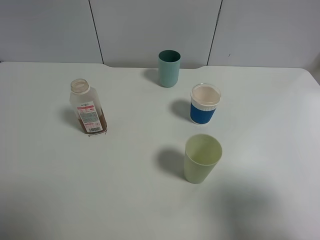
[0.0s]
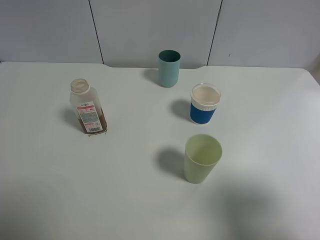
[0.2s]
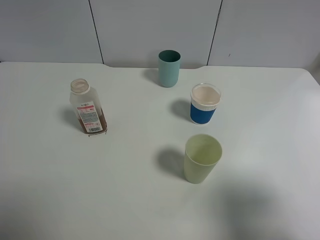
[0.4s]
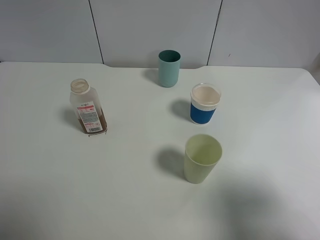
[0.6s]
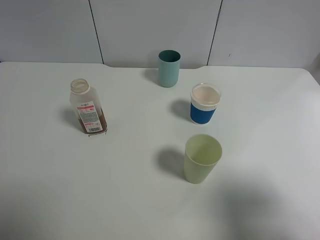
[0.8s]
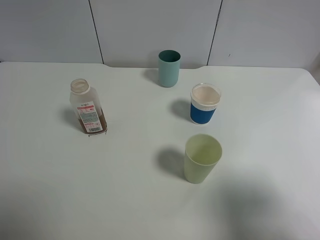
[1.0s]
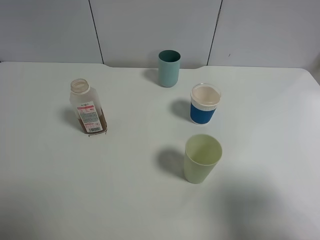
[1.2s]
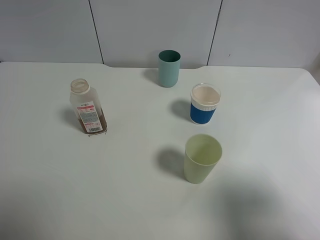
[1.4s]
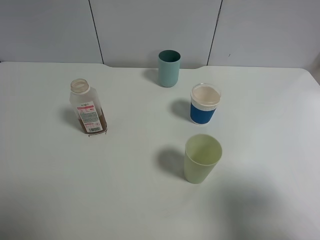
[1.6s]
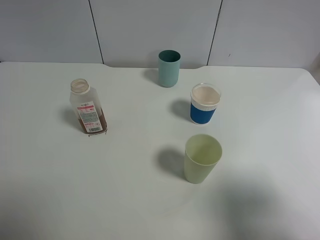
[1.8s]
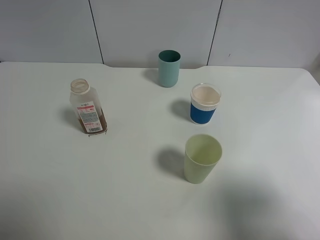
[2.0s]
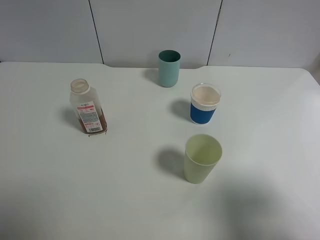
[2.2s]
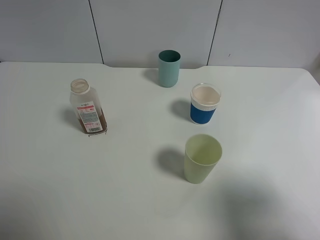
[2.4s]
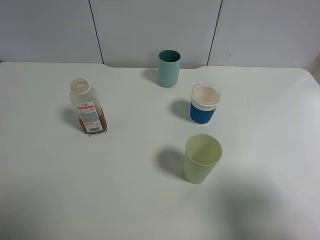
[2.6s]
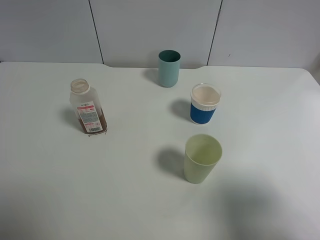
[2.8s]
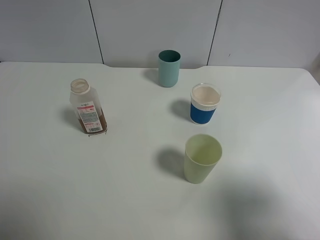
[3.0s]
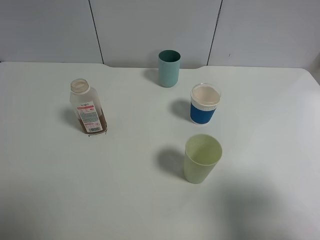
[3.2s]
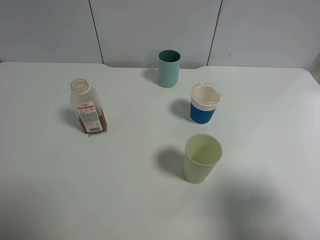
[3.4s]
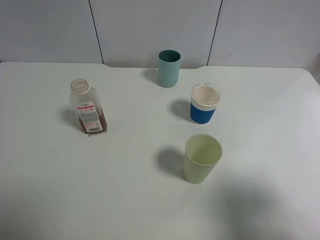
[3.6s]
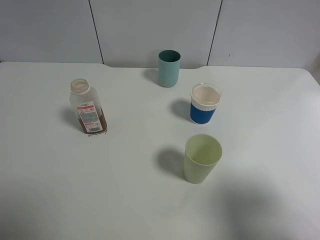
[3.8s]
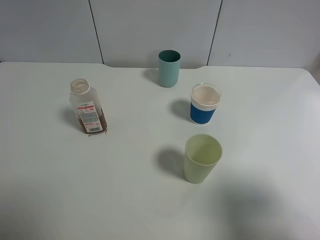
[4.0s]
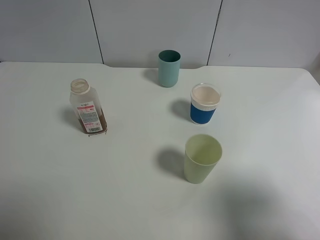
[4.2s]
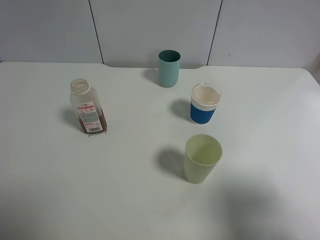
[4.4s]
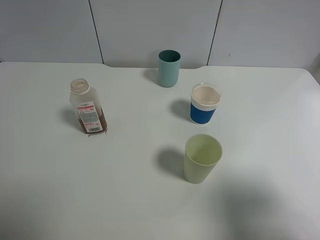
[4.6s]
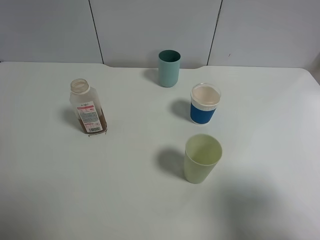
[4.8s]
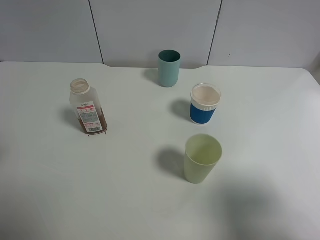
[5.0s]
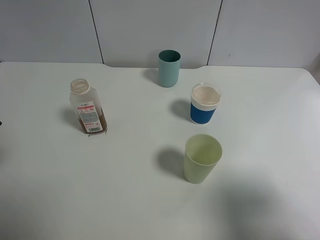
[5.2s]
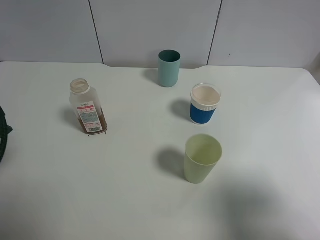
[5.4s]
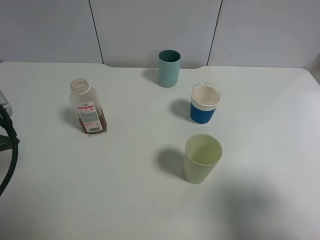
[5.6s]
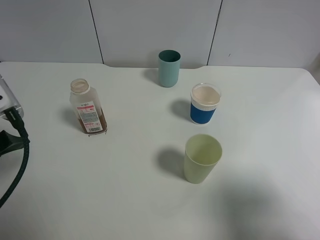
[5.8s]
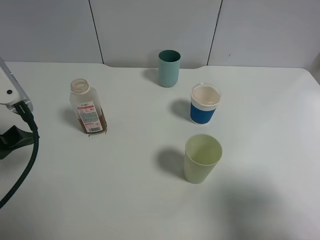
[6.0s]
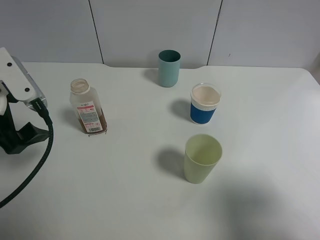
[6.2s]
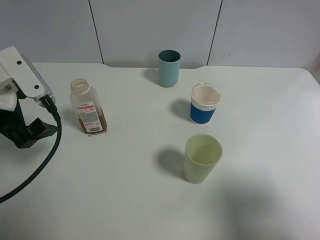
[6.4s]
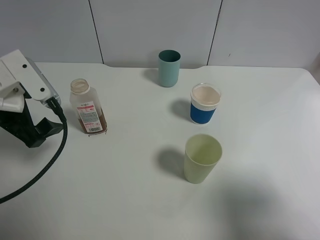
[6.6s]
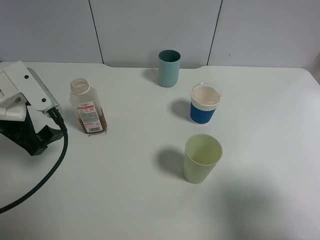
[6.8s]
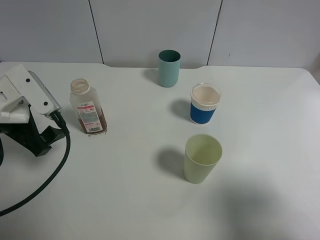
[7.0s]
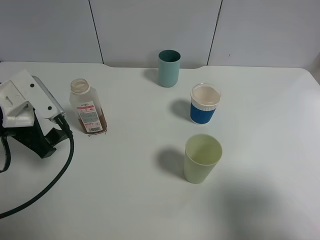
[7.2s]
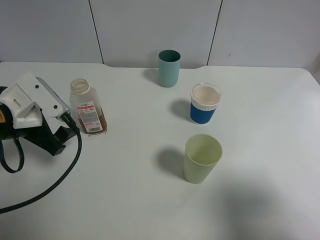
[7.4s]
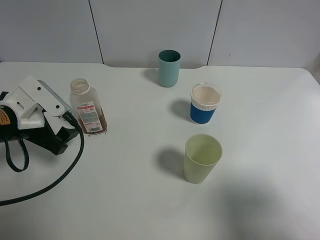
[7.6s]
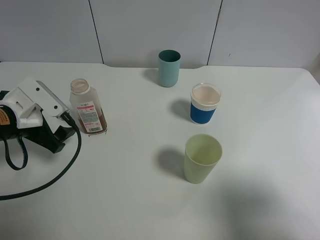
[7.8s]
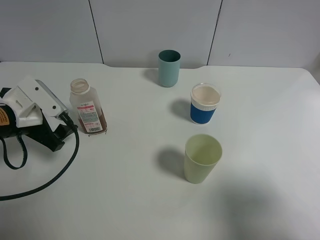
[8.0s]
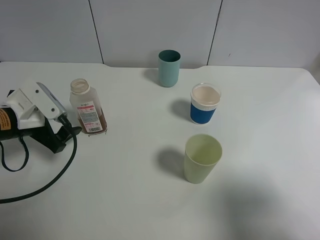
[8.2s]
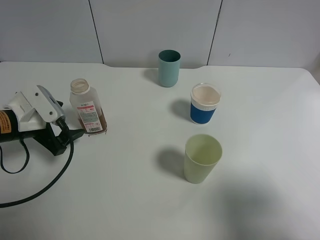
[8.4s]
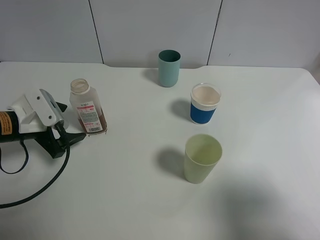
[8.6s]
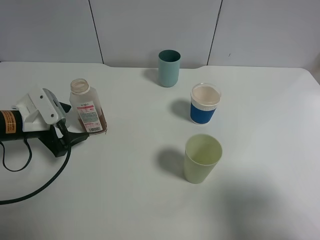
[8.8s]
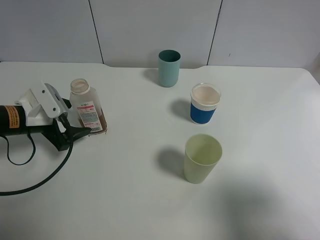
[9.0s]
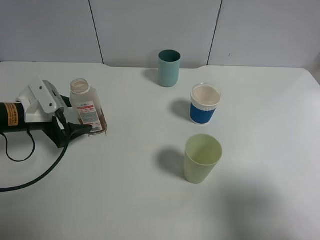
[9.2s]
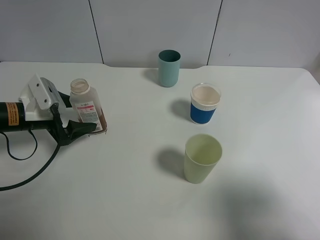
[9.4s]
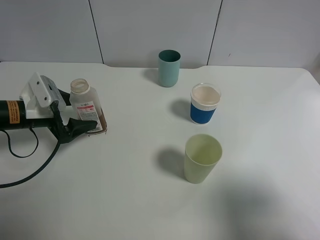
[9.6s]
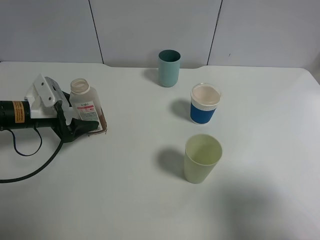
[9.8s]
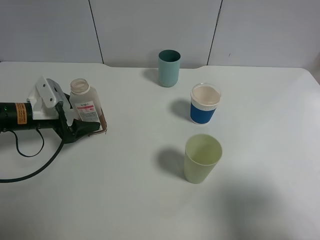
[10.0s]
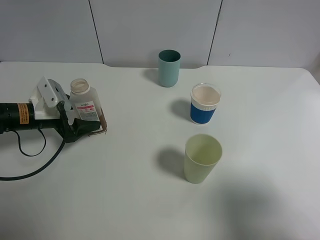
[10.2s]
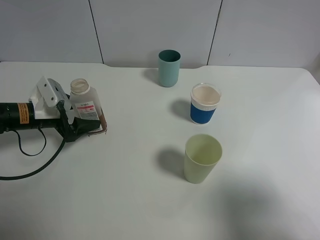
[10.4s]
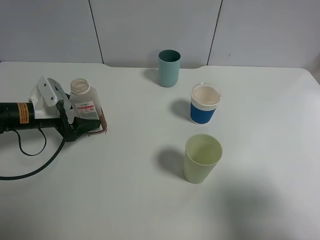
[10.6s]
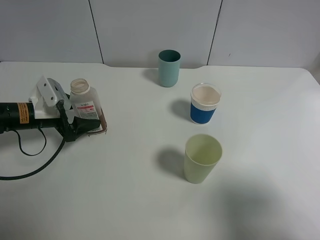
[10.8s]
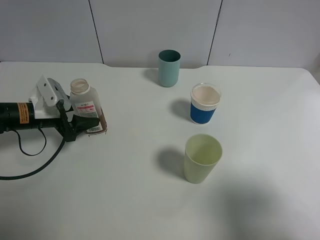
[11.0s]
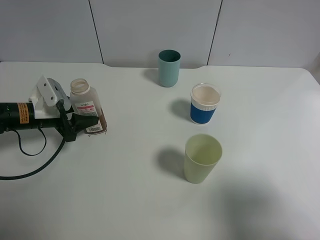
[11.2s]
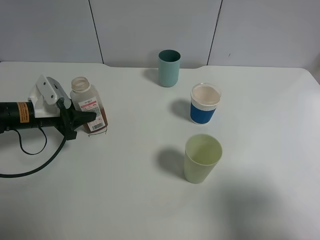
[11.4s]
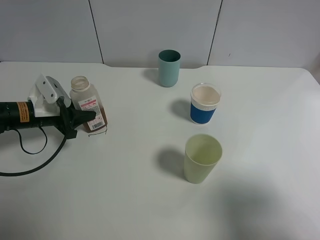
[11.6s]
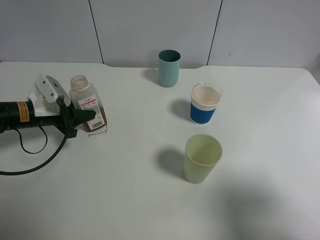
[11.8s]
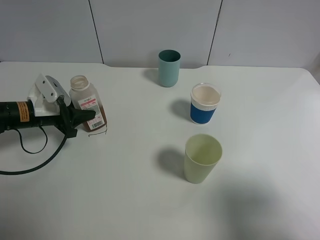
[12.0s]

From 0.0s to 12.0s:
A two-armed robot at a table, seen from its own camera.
Task of the whole recording: use a gripper to hold the bottle of the drink and pour it into a random cup.
Step, from 0.0s to 11.2s: Grasp the cranberry juice bottle with the left gripper.
From 0.0s to 3.0s: Both grippers stay about where they are.
From 4.4s to 6.0s: The left gripper shifts some 10 cm downward and forward.
From 6.0s to 7.6s: The left gripper travels downward by about 10 cm.
From 7.6s to 9.0s: The left gripper shifts by approximately 5 cm.
From 9.0s to 10.4s: The grippers make only small movements.
From 10.4s to 12.0s: The left gripper closes.

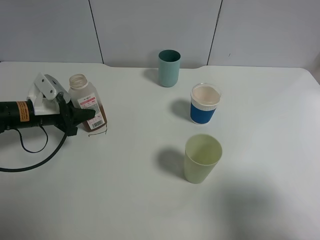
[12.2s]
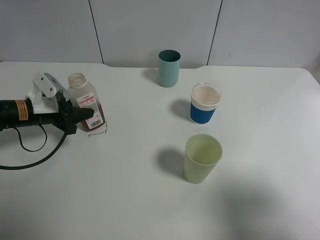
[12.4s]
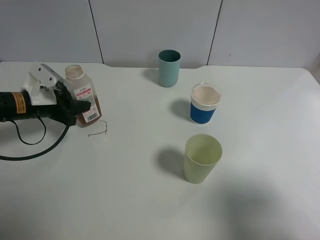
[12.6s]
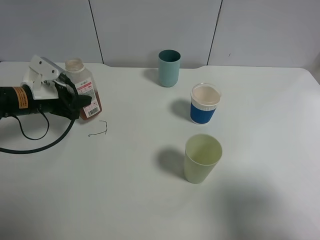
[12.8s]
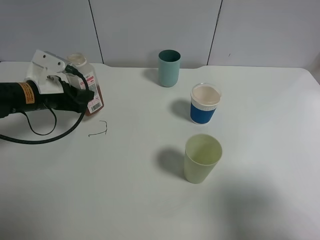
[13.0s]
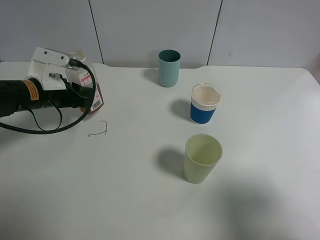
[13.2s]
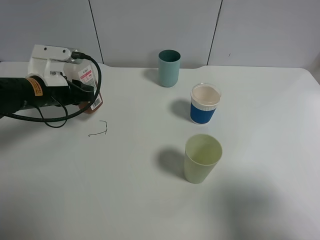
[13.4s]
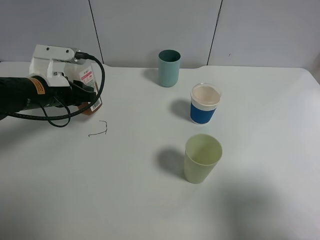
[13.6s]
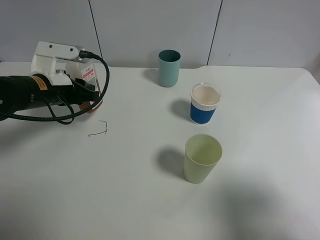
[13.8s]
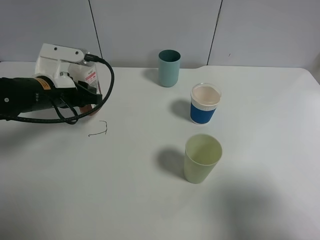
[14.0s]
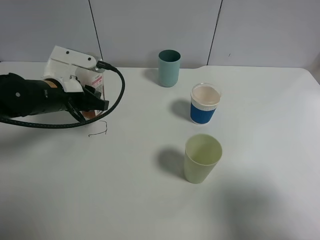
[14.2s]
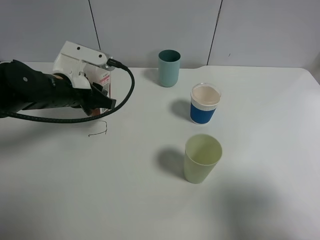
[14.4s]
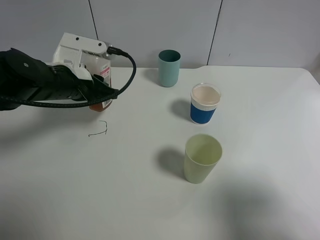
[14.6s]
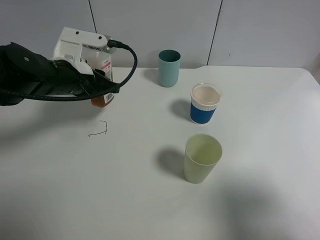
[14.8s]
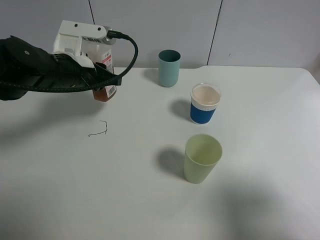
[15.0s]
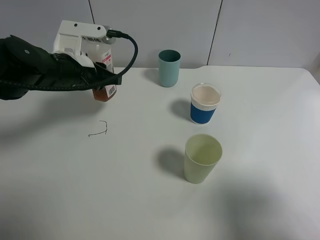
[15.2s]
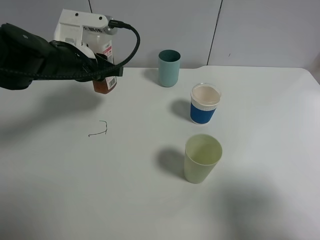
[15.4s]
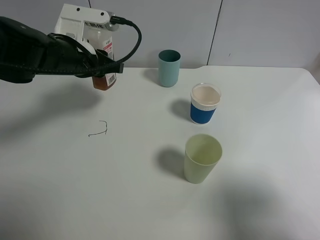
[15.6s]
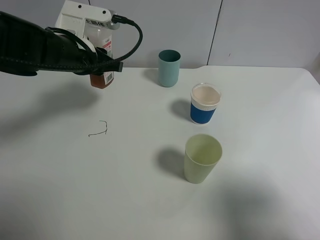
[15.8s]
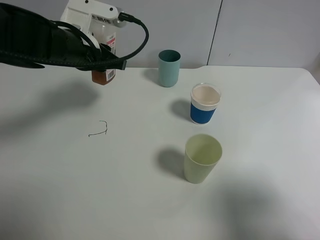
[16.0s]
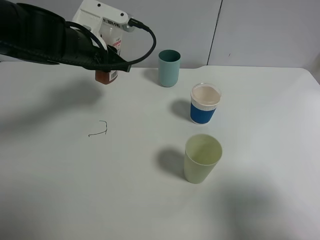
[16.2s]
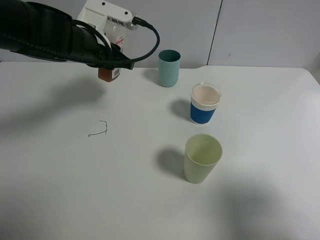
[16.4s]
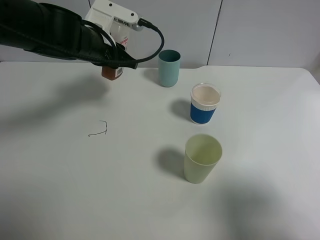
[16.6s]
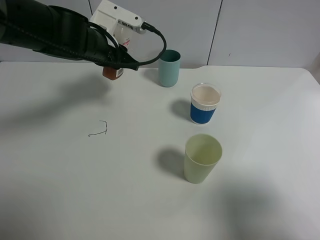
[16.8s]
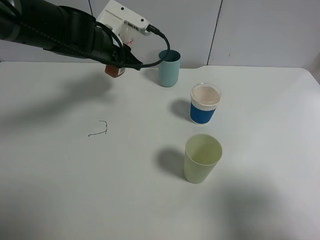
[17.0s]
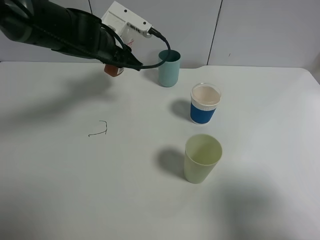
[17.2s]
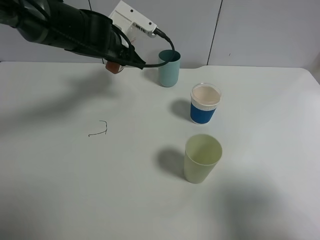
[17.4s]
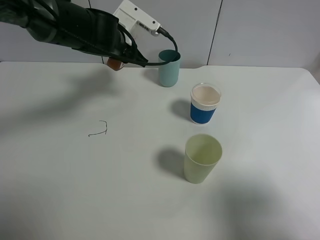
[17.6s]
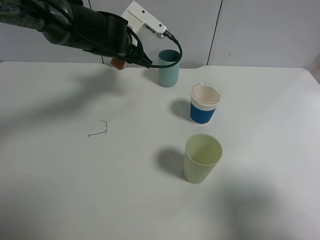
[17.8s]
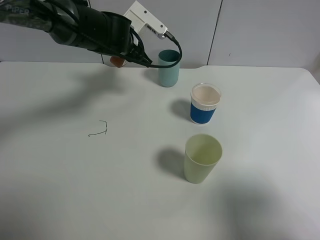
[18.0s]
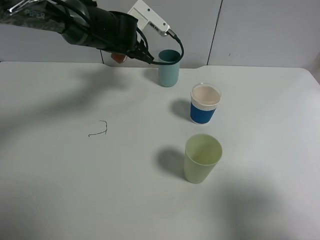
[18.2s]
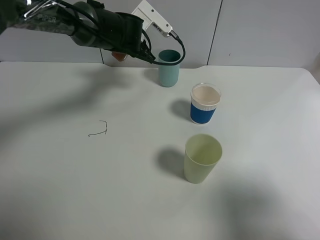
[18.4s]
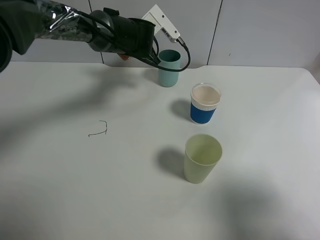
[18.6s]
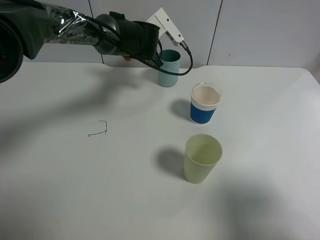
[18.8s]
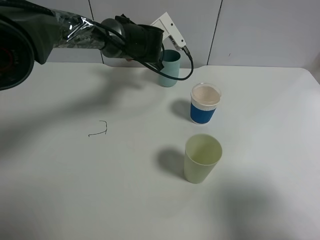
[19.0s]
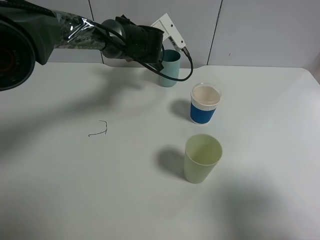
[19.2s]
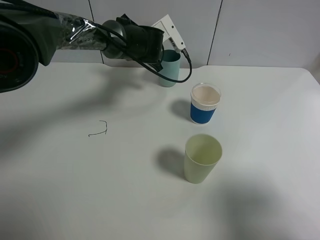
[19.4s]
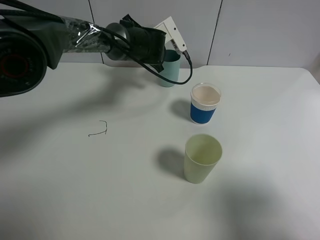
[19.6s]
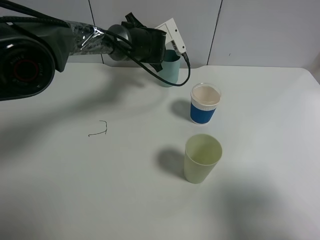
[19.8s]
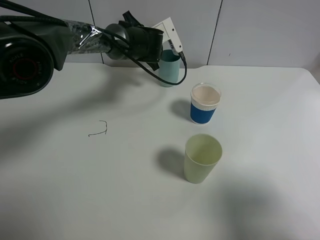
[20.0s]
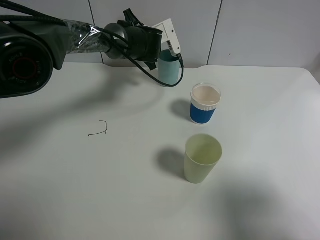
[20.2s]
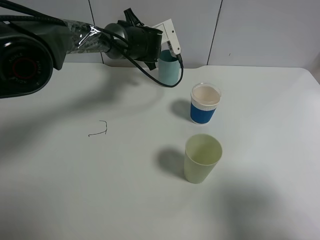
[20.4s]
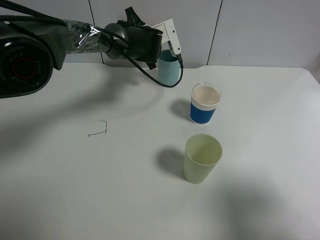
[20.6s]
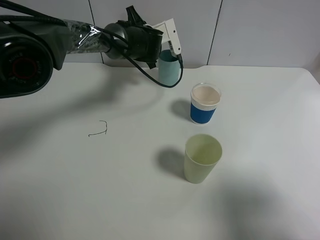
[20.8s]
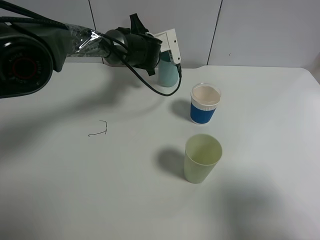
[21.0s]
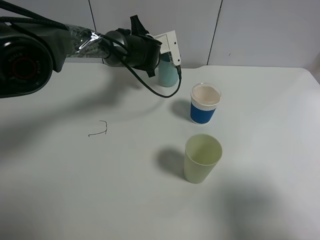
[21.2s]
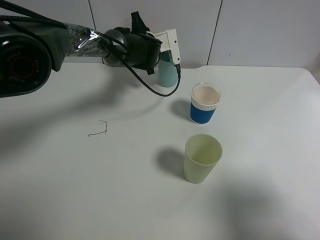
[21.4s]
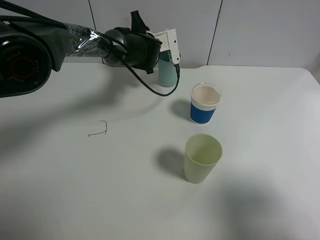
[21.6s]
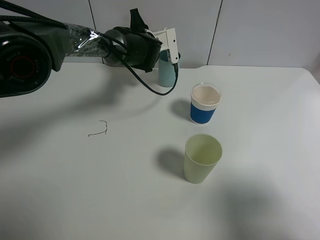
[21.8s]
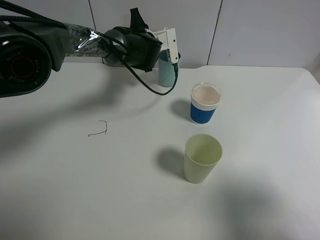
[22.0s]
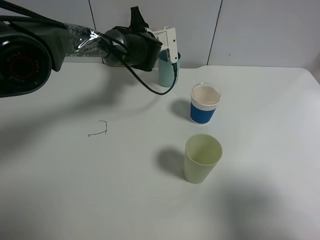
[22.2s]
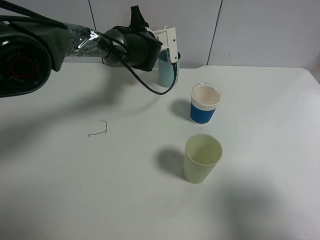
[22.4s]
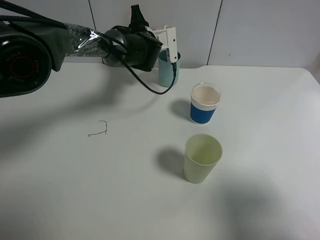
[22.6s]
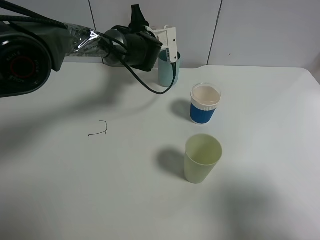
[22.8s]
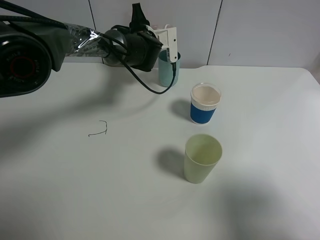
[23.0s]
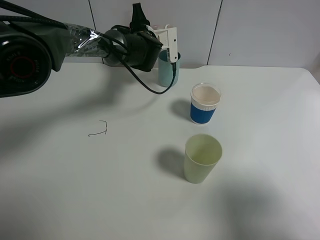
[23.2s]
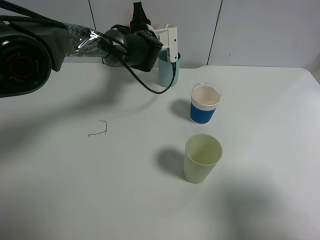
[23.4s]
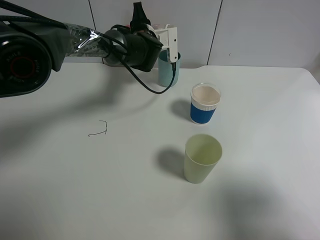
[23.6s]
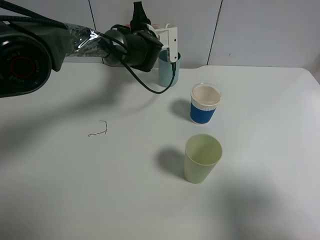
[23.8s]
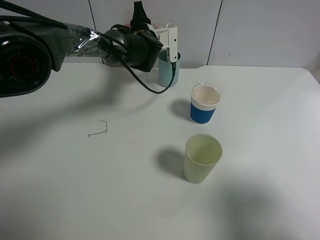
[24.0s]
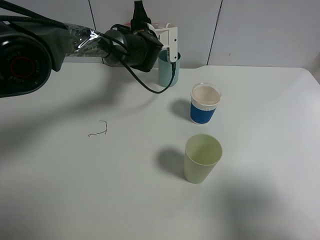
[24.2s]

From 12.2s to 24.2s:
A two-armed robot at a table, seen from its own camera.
Task of the whole recording: use a gripper to hold the bottle of the drink and pour it into a random cup.
From 12.2s to 13.8s: The left gripper travels upward and to the right by roughly 10 cm.
From 13.8s to 15.2s: The left gripper moves about 5 cm.
From 15.2s to 16.6s: The left gripper heads forward, covering some 5 cm.
From 16.6s to 18.2s: The left gripper moves forward, approximately 5 cm.
From 18.2s to 19.8s: The left gripper moves some 5 cm.
From 19.8s to 21.2s: The grippers stay close to where they were, moving slightly.
From 21.2s to 24.2s: There are only small adjustments of the grippers.
